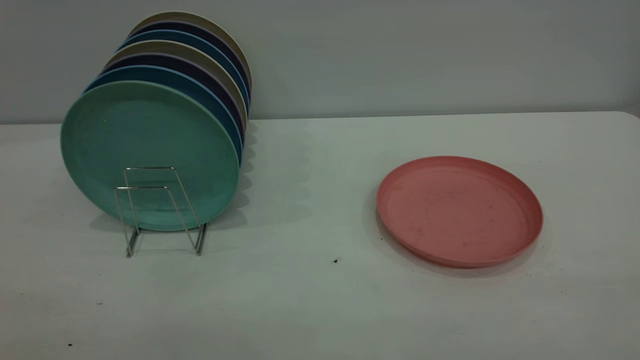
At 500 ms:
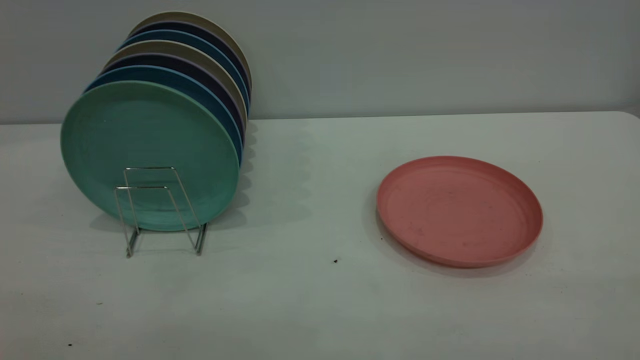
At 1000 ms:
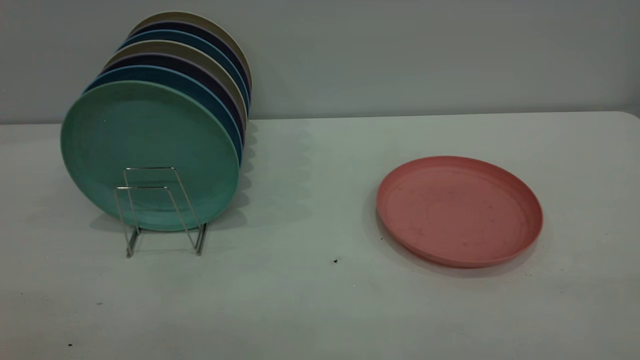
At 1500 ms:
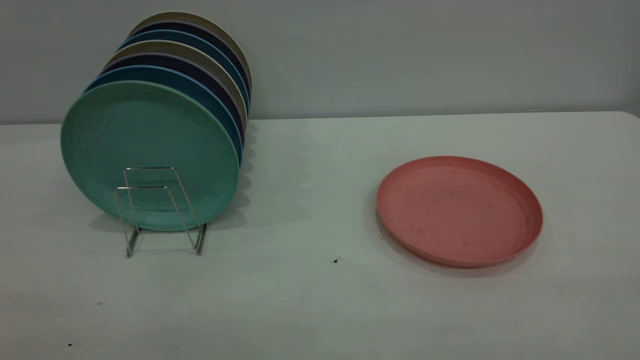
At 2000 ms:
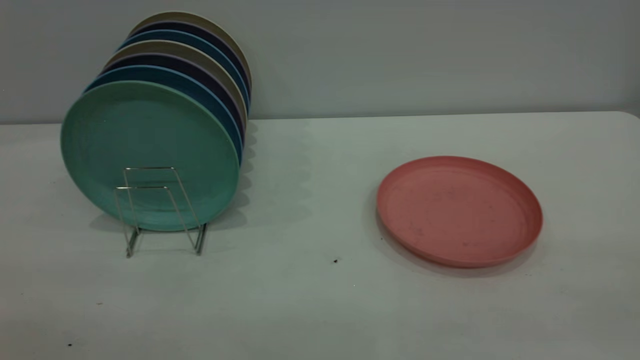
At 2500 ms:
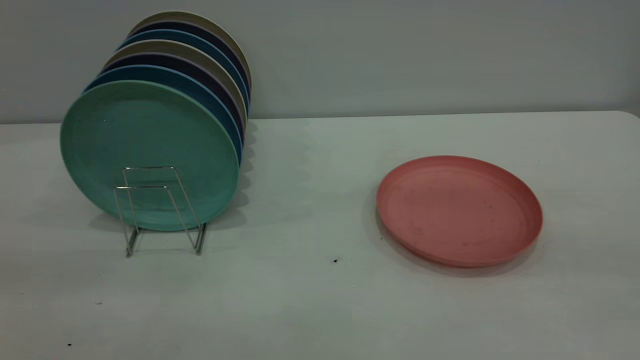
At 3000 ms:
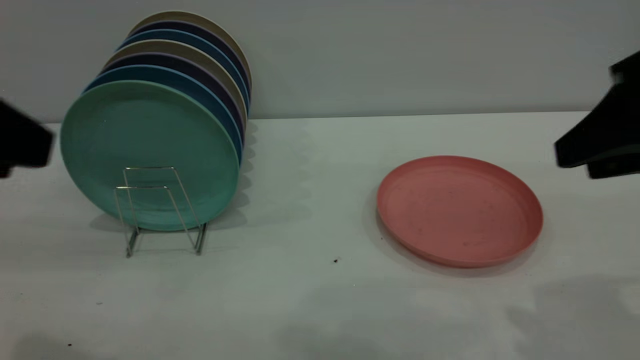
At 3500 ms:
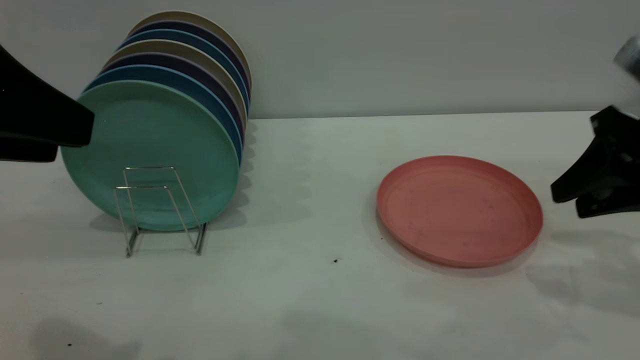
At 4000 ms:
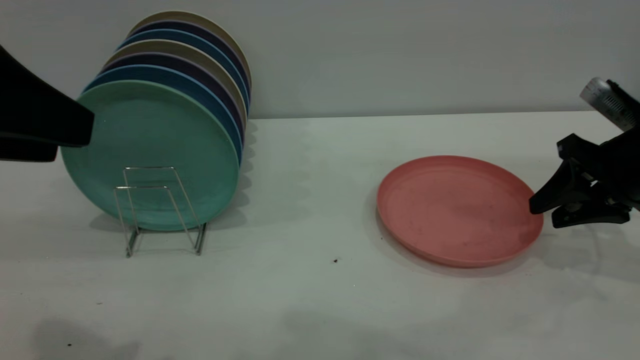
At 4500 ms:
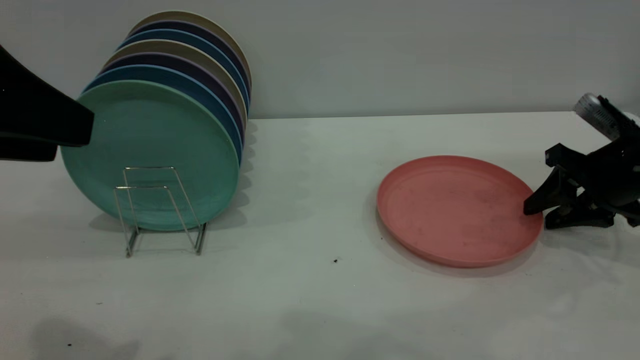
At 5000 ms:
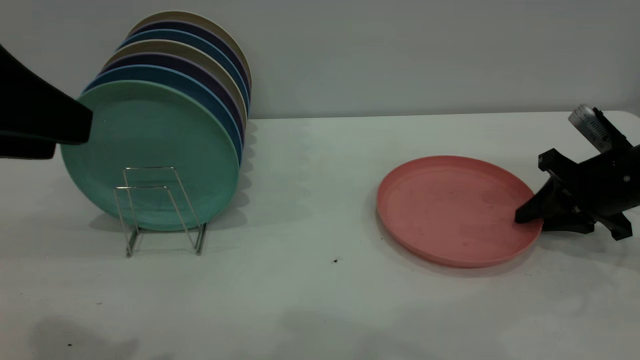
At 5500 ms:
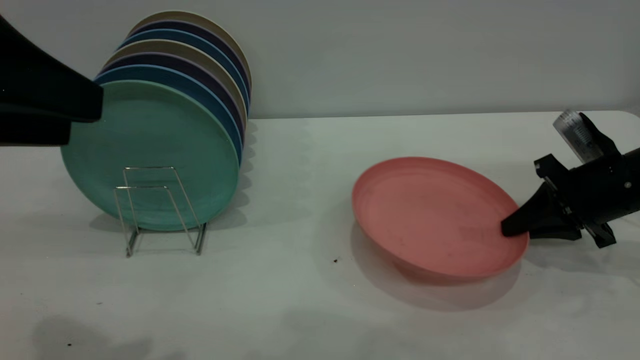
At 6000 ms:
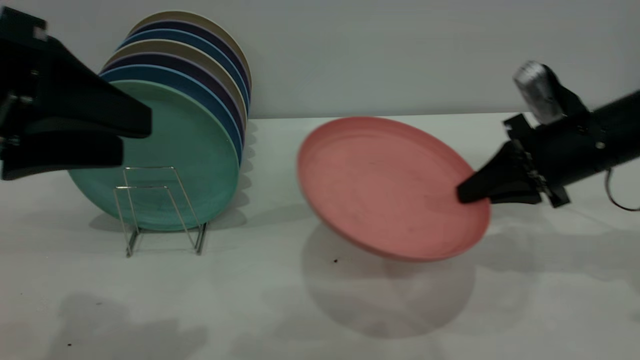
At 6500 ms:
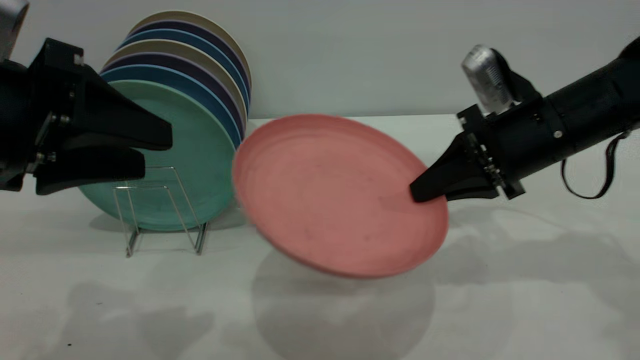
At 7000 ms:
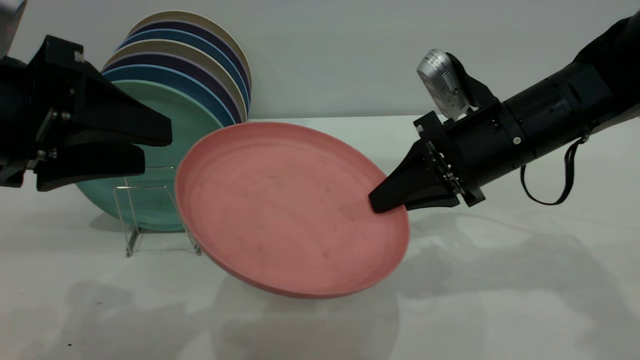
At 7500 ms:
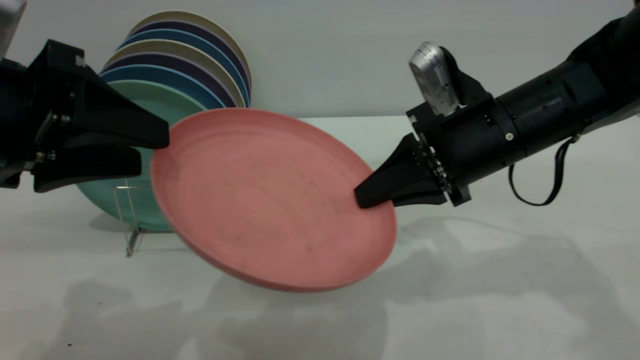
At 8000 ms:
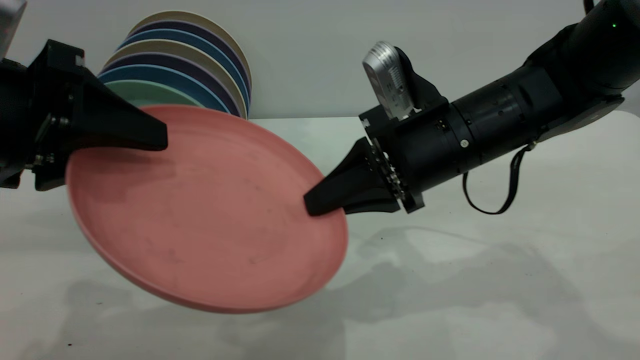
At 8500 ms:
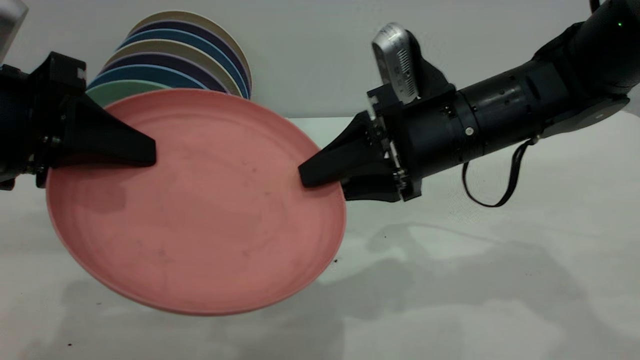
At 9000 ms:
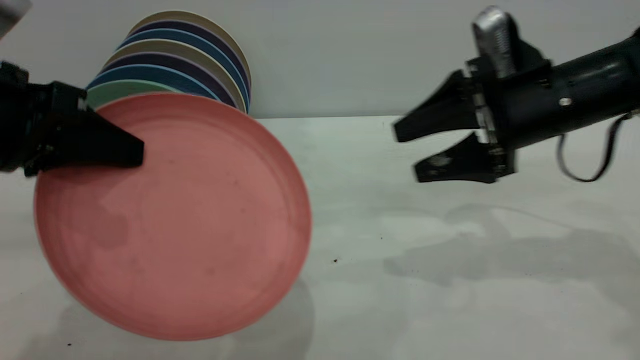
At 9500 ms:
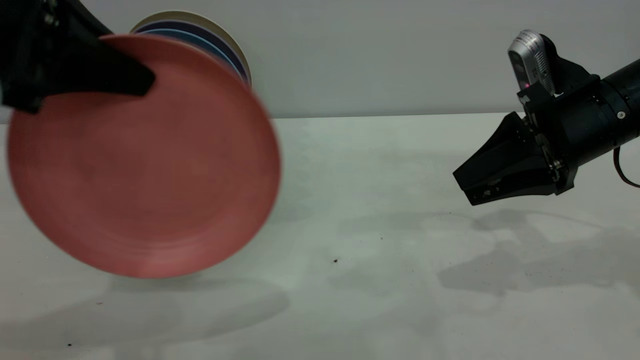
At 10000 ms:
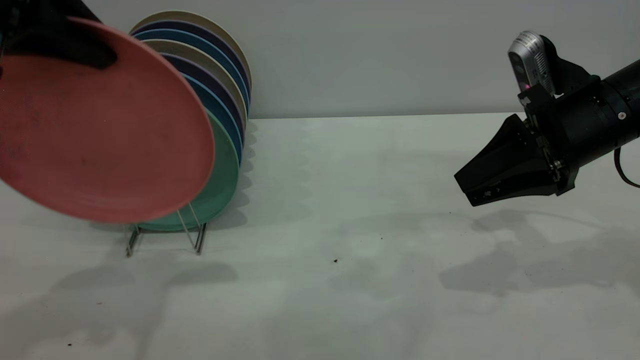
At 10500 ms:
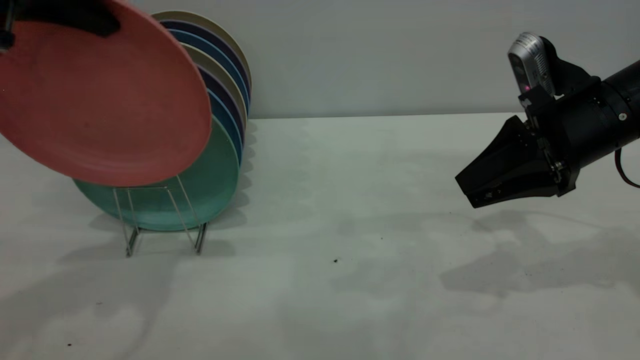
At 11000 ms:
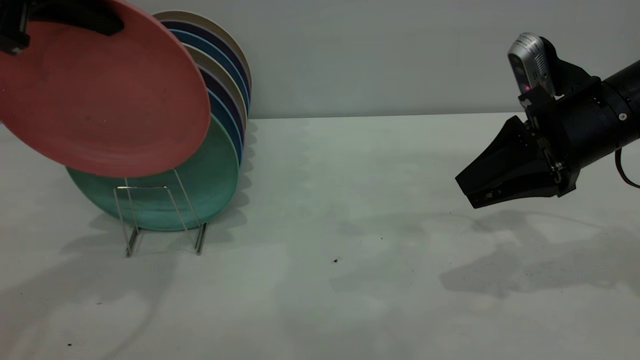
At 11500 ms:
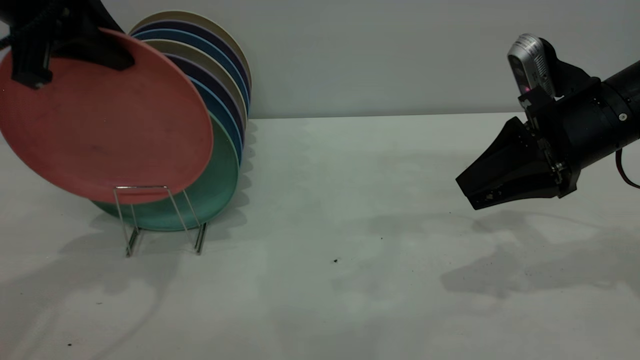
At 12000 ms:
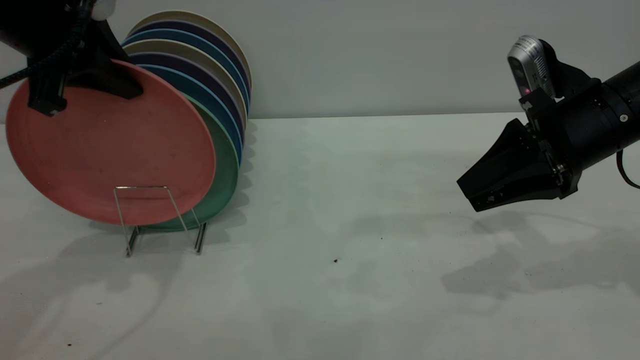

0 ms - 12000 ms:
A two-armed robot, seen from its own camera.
Task of the whole recording: the right gripper grasp the pink plate, the right gripper pass the pink plate to the left gripper, and the left gripper place the pink plate on the plate rack.
Step, 0 ms - 5500 ms: Pick up the plate with the right gripper.
Step, 6000 ms - 8500 ms: Pass the plate from the right gripper to the left gripper.
2000 ms - 4000 ms: The right gripper shifts about 40 cm forward and downward. The left gripper shifts roughly 15 cm forward.
4000 ms - 6000 ms: The right gripper travels to the left by about 5 cm, and closes up.
6000 ms - 8000 ms: The right gripper shifts some 15 cm to the left.
8000 ms - 10000 ms: The left gripper heads upward and forward, covering some 10 cm, and closes its fingers. The right gripper goes roughly 15 cm to the right, and opens up.
10000 ms - 12000 ms: The left gripper is displaced forward and downward by approximately 10 cm.

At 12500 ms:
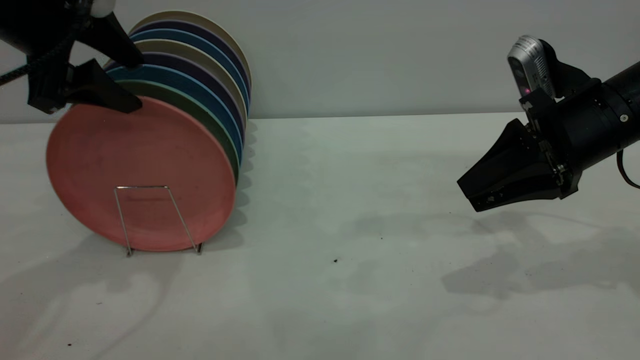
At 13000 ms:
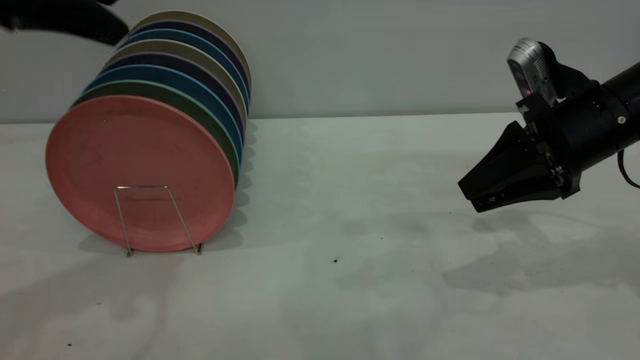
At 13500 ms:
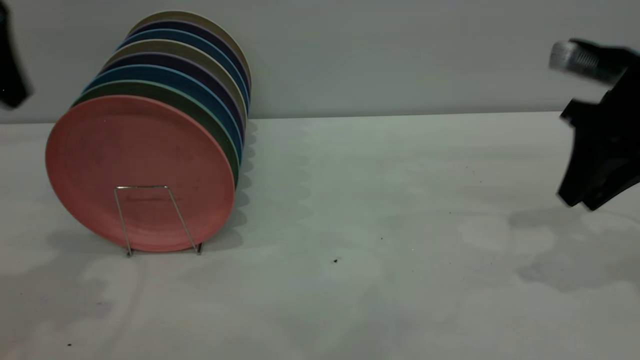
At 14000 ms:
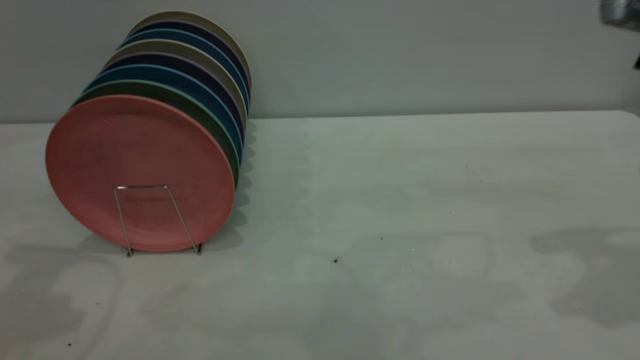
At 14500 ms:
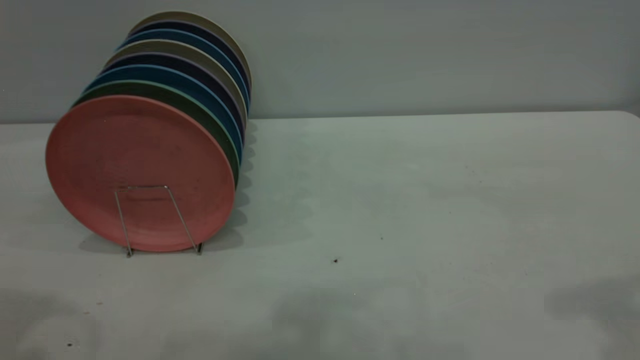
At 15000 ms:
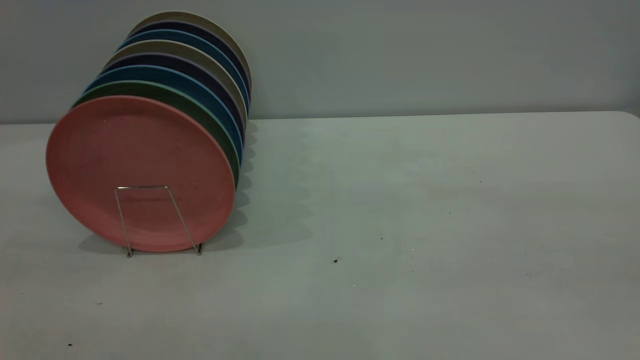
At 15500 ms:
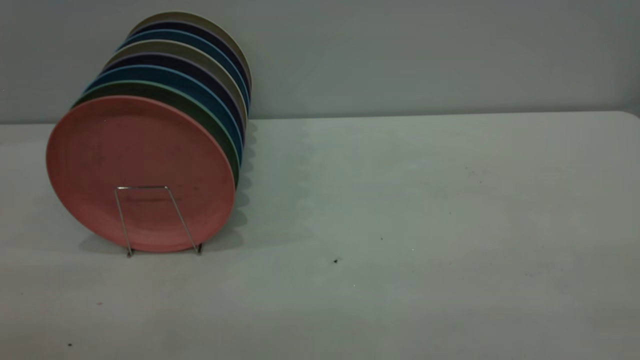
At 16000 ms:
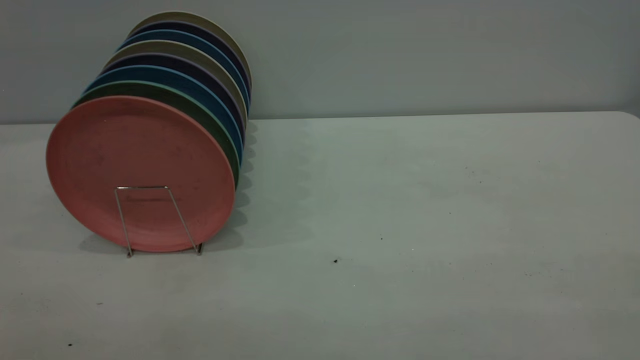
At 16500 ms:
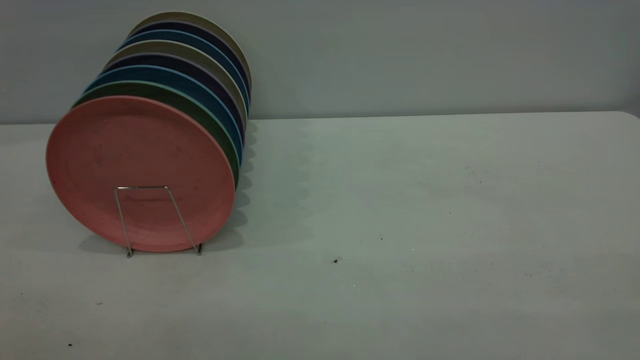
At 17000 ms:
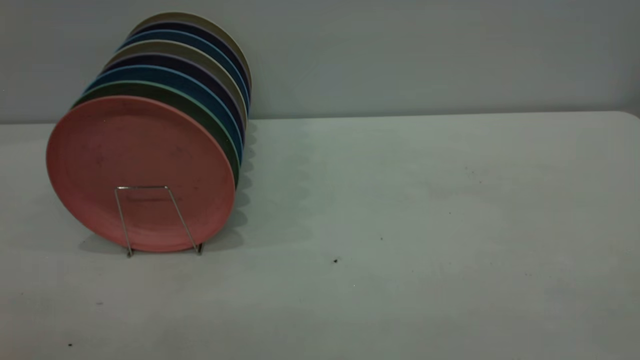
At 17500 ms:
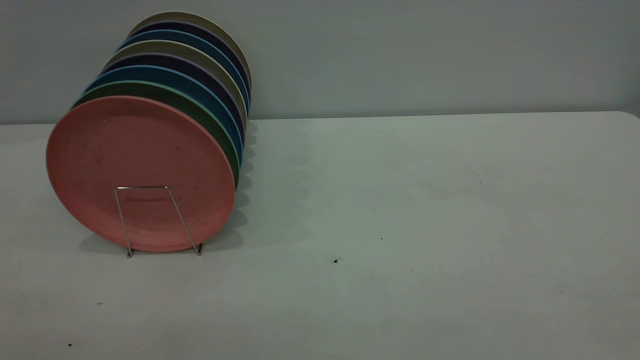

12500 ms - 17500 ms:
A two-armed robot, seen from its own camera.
Task of the whole recording: the right gripper grasp the pink plate, the right gripper pass the pink plate to the left gripper, and the left gripper place the pink plate on the plate rack.
12500 ms - 15000 ms: The left gripper heads backward, covering about 25 cm. The right gripper shifts roughly 35 cm backward and upward.
